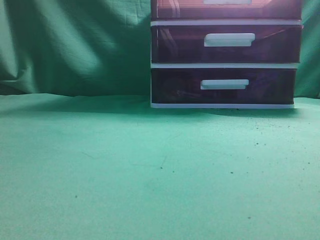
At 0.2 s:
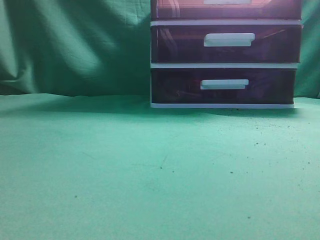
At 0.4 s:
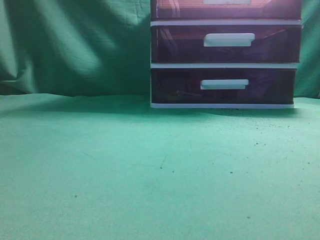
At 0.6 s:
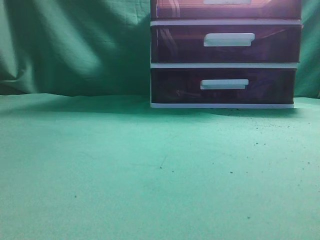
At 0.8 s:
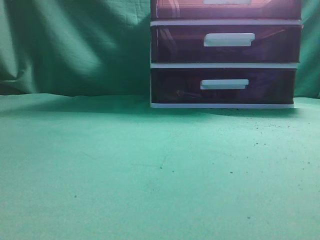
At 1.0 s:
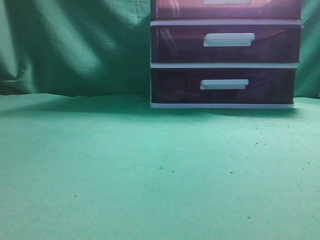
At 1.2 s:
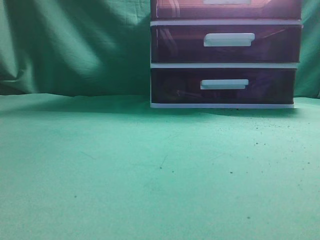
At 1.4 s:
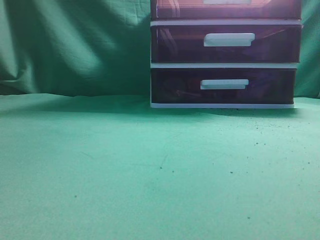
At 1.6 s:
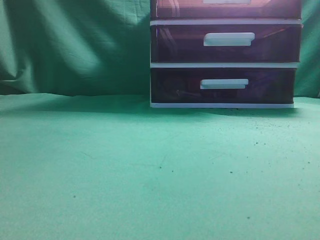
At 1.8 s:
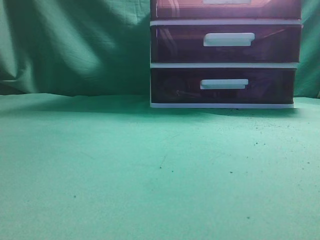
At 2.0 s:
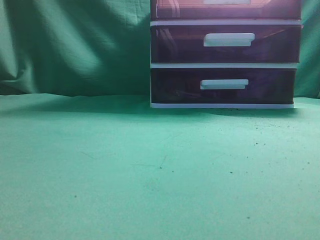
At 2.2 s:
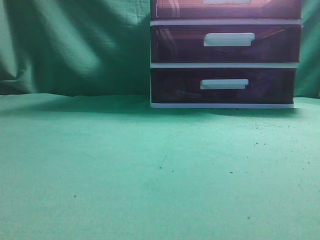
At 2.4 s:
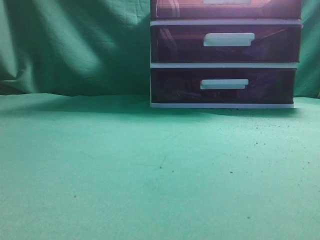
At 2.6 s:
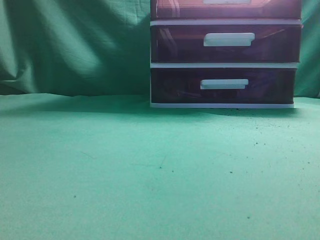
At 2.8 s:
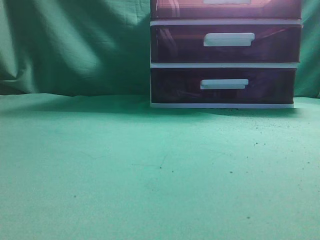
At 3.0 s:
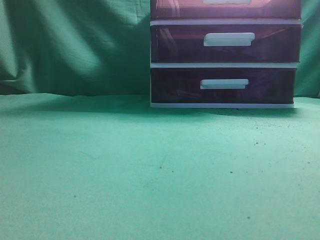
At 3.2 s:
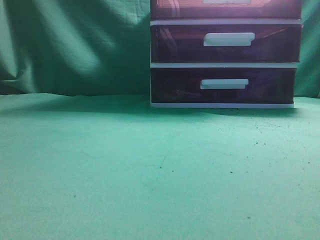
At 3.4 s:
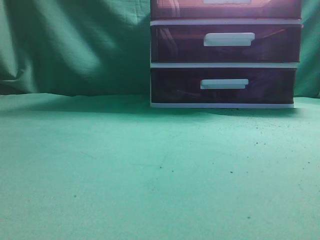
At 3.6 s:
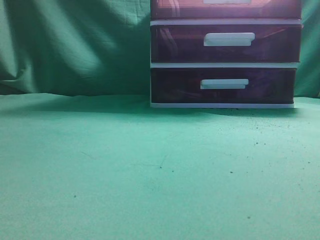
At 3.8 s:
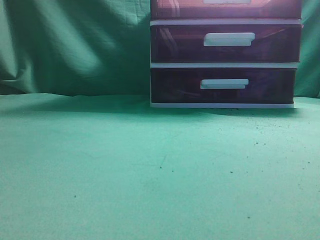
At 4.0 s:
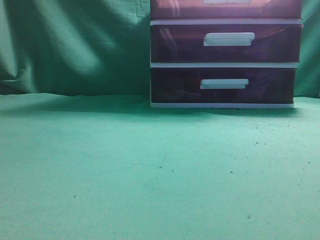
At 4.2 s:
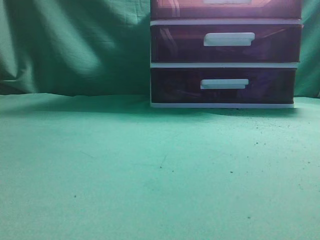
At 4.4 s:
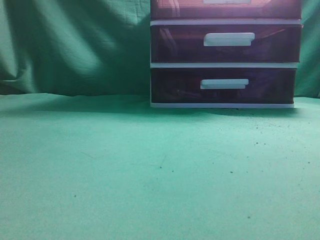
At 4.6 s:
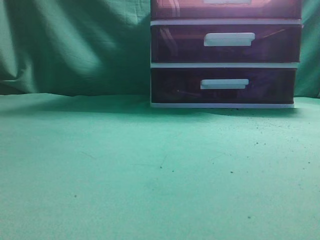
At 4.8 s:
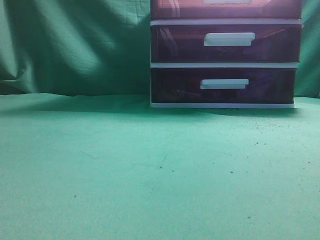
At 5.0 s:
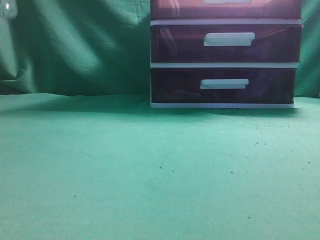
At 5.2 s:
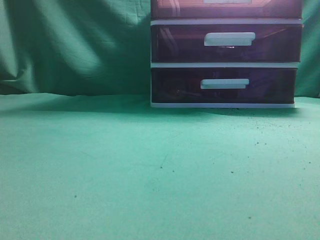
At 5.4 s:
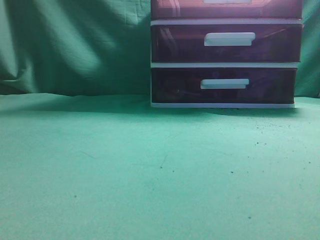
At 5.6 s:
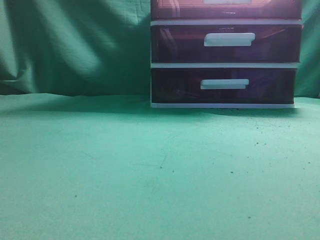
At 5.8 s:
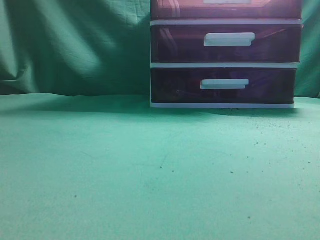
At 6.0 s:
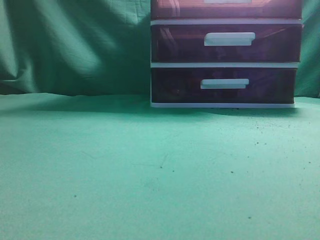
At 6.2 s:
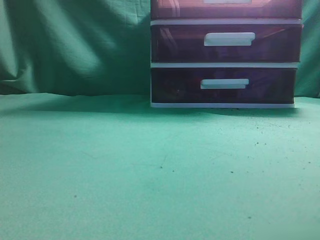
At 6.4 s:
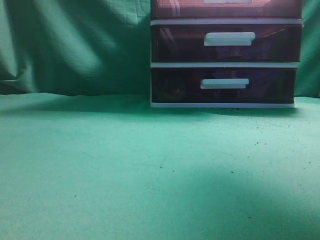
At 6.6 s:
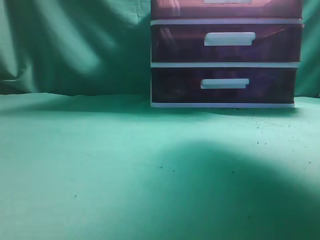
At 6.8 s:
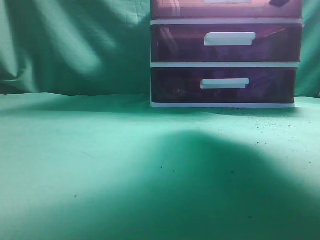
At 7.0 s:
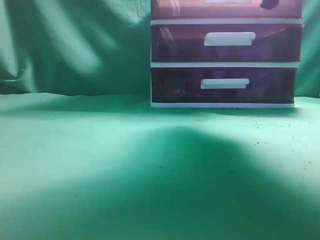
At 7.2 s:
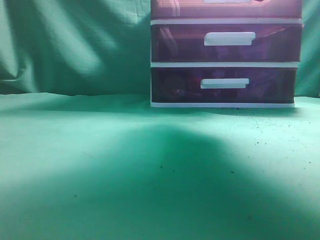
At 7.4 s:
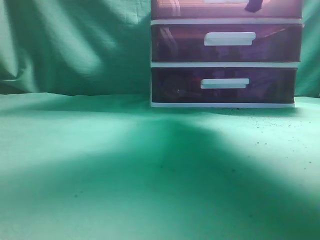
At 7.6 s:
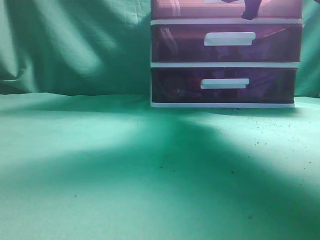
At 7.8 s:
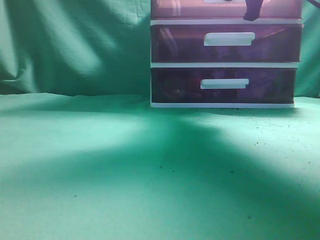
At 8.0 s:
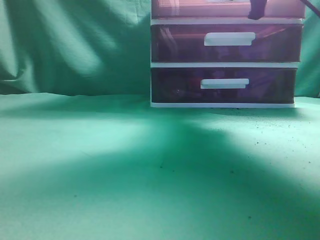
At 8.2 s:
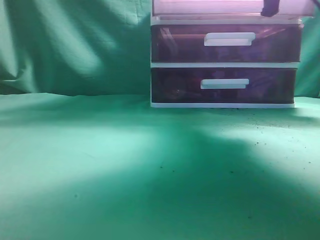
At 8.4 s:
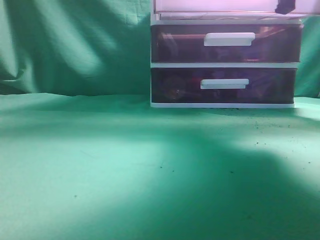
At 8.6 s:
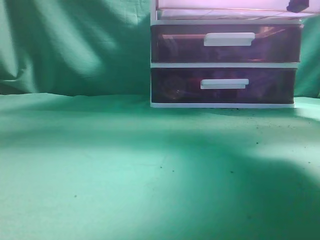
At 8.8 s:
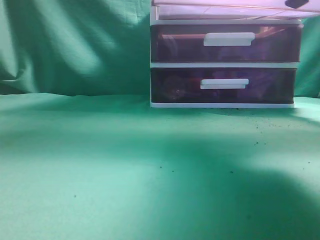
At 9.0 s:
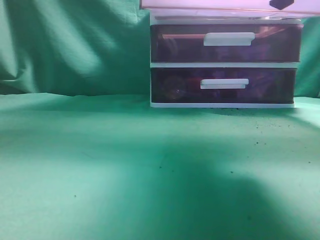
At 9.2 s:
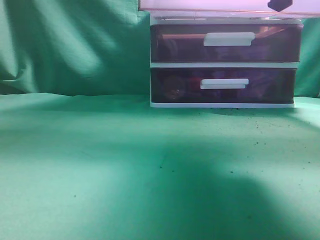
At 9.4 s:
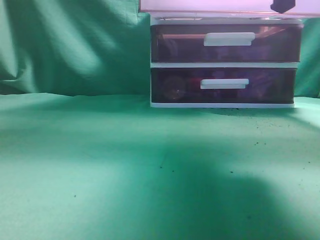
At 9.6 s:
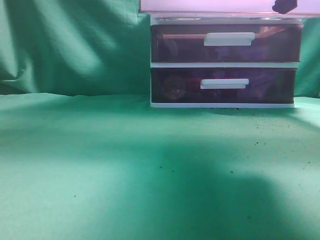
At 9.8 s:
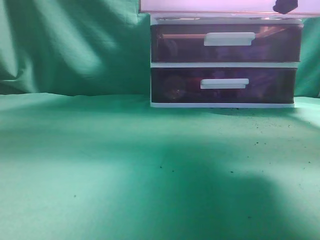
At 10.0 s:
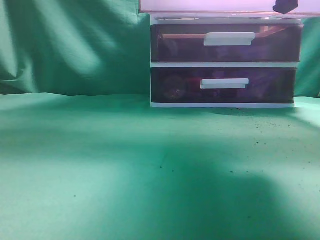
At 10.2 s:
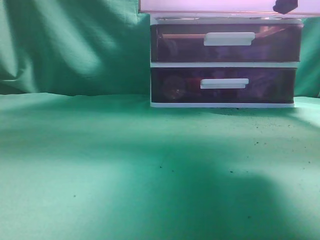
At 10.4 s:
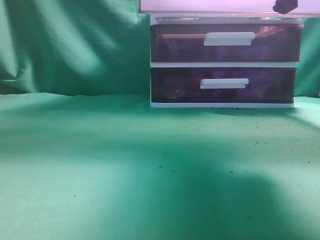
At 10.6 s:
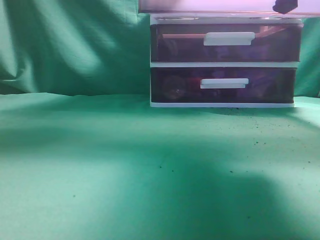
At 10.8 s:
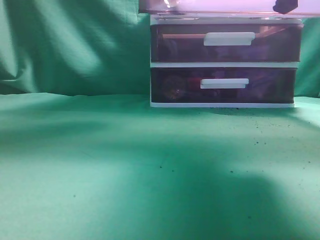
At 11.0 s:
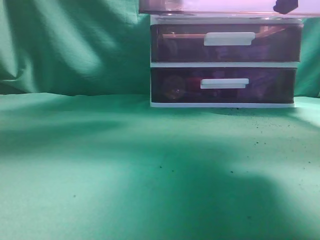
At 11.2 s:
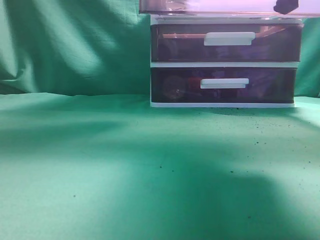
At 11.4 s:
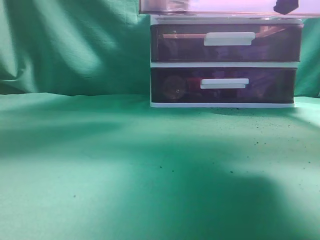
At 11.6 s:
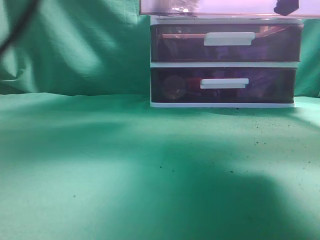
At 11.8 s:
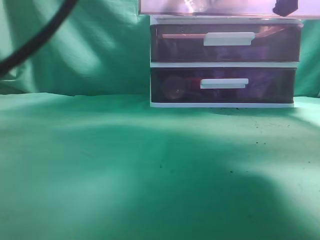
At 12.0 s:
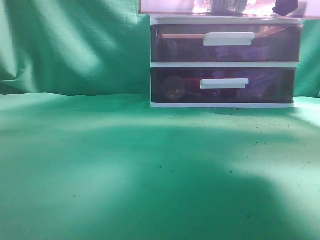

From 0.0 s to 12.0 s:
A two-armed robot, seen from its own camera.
Task of the whole recording: place the water bottle into the drawer.
Step, from 0.0 s to 9.4 s: Open the drawer.
From 6.0 s to 7.6 s: The right gripper heads forward and to the left, covering some 25 cm.
From 7.6 s to 9.0 s: The right gripper is displaced backward by approximately 15 cm.
From 10.4 s to 12.0 s: The left gripper travels to the right and downward by approximately 20 cm, and opens.

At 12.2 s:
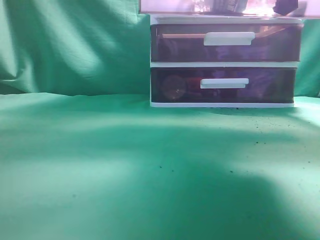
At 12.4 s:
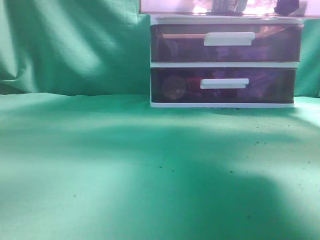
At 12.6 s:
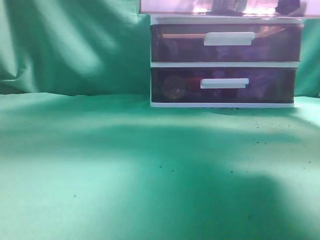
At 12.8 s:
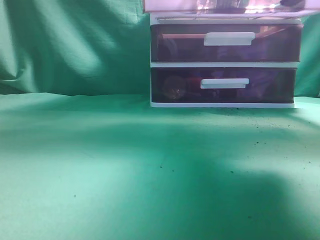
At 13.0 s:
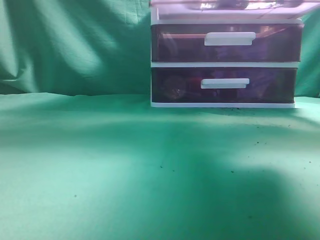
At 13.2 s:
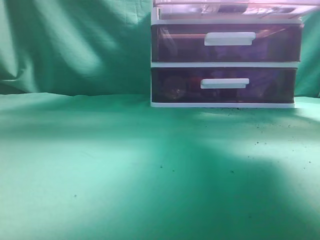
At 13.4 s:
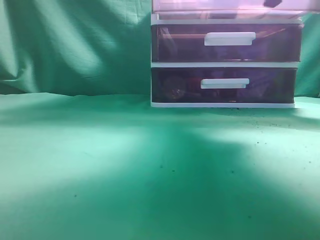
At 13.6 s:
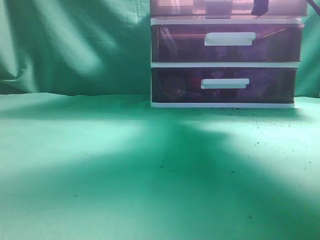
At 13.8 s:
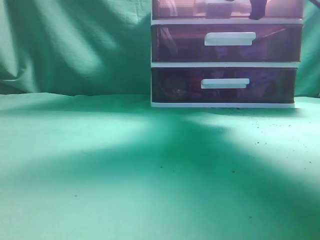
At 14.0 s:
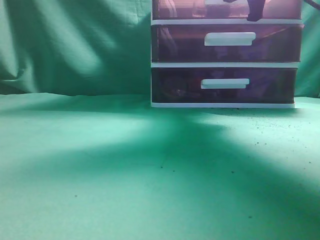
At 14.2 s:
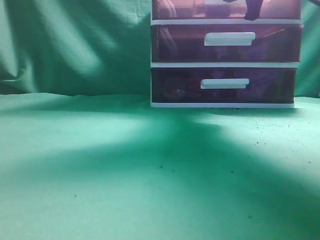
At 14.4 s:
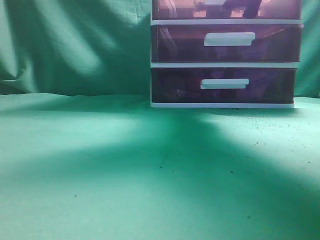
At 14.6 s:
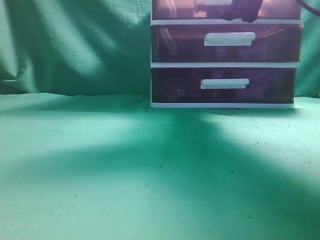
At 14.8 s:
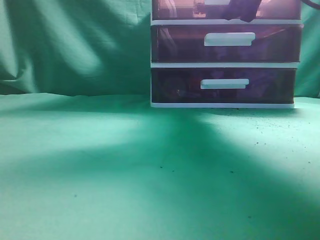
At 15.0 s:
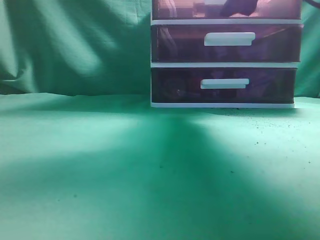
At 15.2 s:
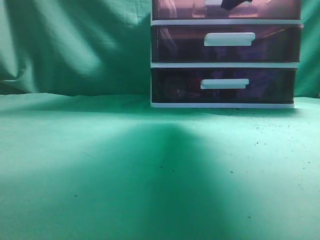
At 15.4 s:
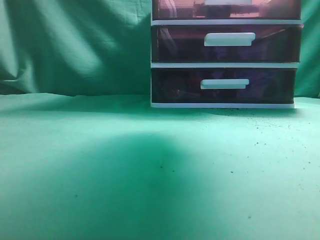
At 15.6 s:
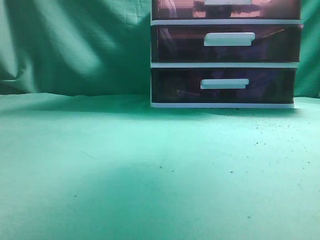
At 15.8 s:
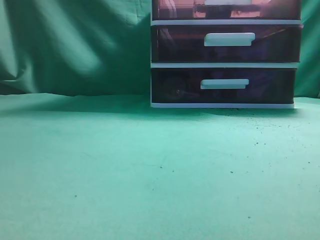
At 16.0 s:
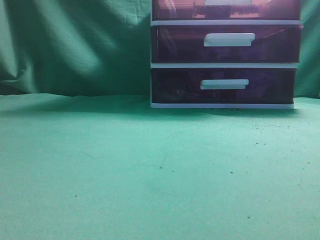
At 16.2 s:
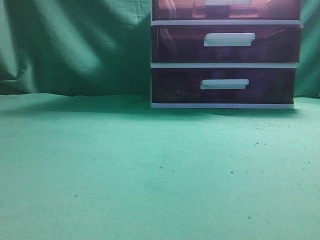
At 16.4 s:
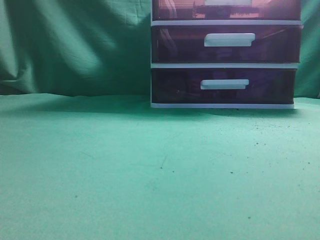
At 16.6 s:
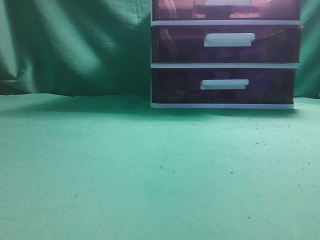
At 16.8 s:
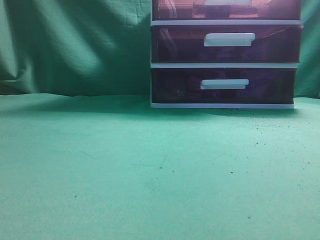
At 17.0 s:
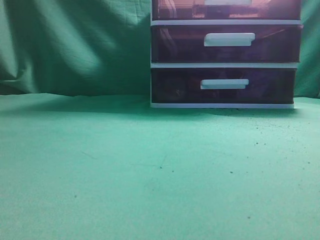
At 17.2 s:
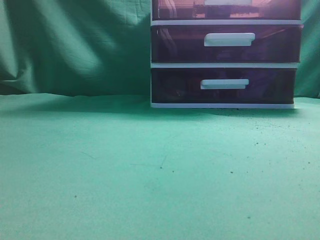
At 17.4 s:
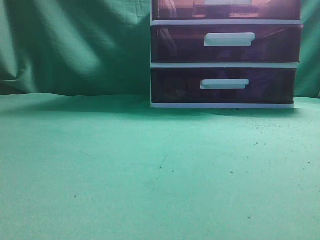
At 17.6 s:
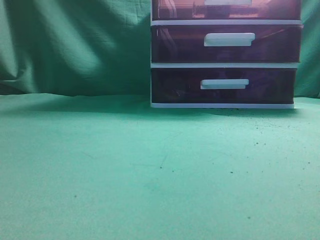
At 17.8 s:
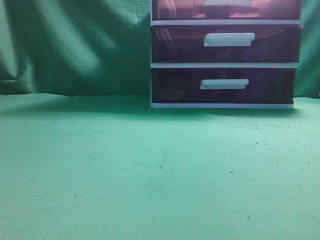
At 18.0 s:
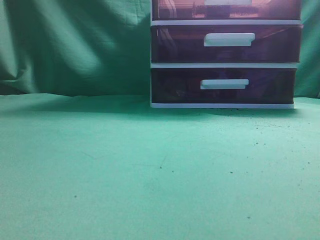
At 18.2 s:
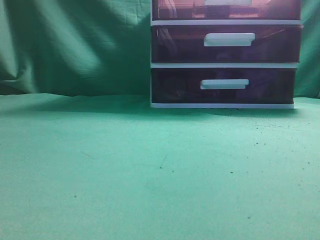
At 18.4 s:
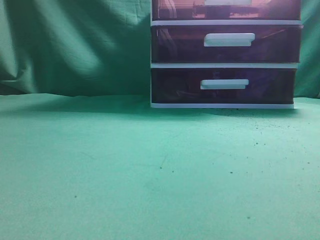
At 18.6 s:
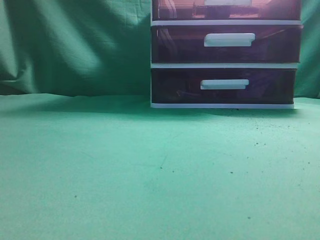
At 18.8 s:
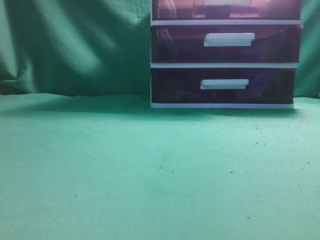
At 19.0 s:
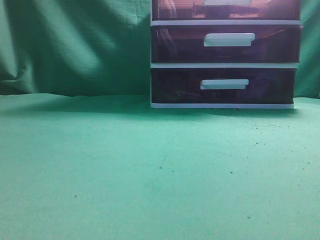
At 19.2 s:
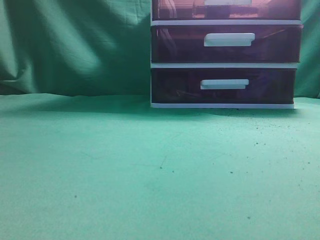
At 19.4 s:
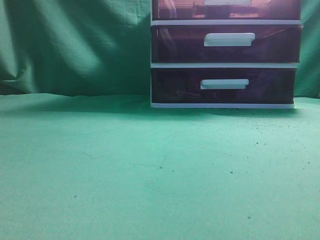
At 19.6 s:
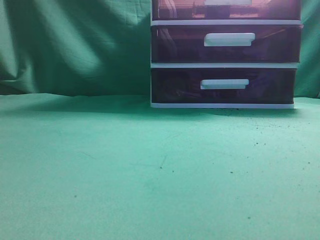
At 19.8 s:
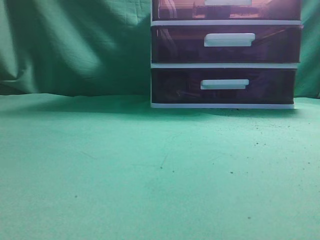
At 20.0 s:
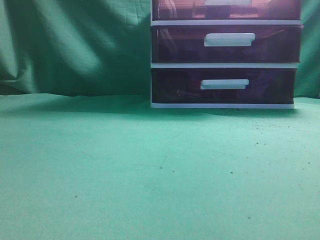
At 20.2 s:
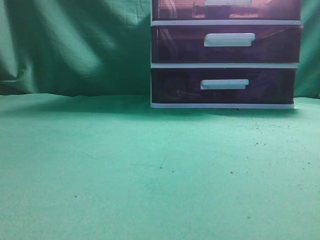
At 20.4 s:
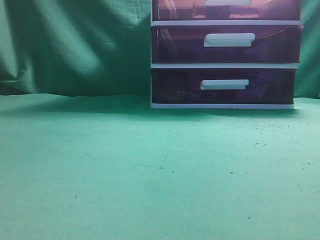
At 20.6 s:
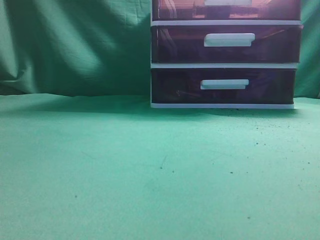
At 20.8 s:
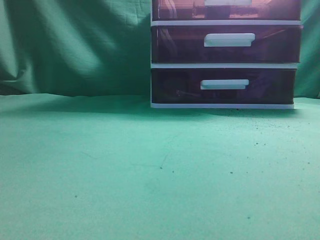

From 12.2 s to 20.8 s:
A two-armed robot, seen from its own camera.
Task of the whole recording: place the water bottle into the drawer.
Step, from 12.4 s to 14.8 s: Close the drawer.
From 12.2 s to 13.6 s: The left gripper goes about 35 cm to the left, backward and upward, and closes up, while the right gripper travels forward by some 10 cm.
From 13.6 s to 15.0 s: The left gripper is displaced backward and downward by approximately 10 cm; the right gripper opens its fingers.
From 15.0 s to 16.6 s: The left gripper moves downward, backward and to the left, some 20 cm. Meanwhile the right gripper travels backward by roughly 35 cm, and closes.
